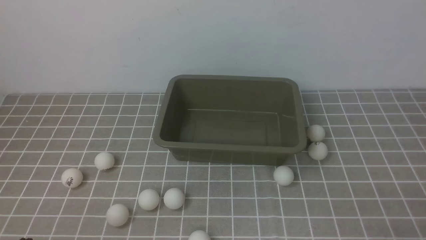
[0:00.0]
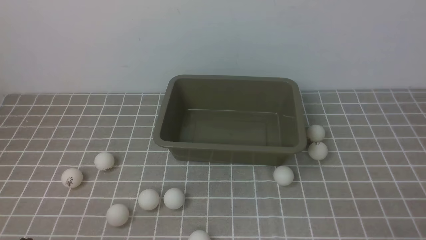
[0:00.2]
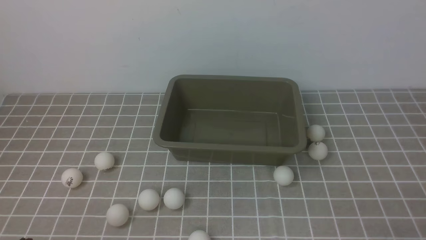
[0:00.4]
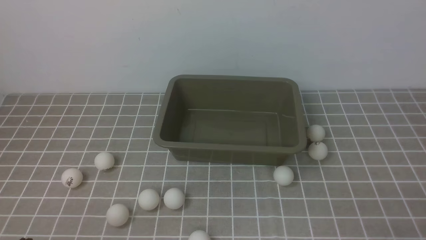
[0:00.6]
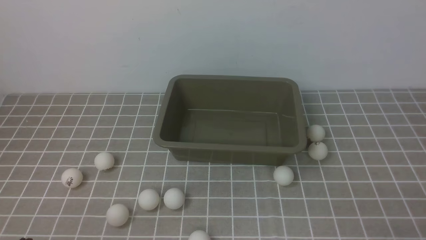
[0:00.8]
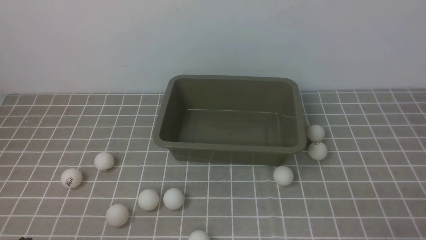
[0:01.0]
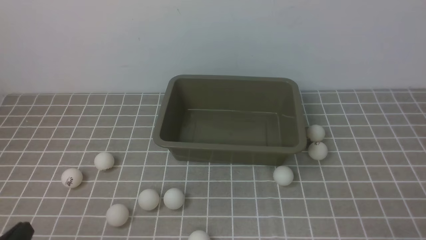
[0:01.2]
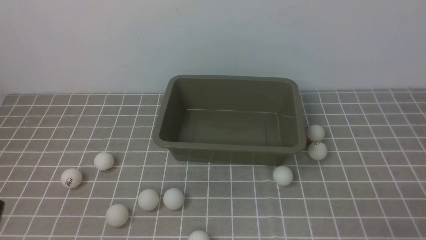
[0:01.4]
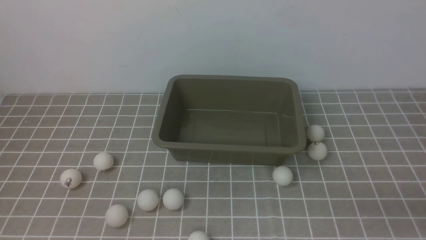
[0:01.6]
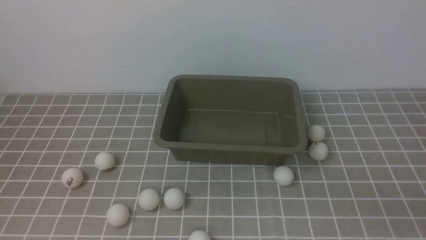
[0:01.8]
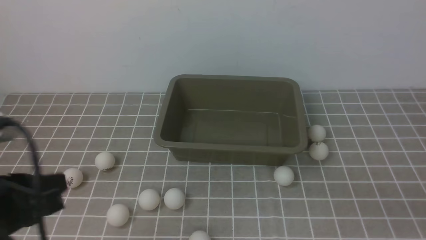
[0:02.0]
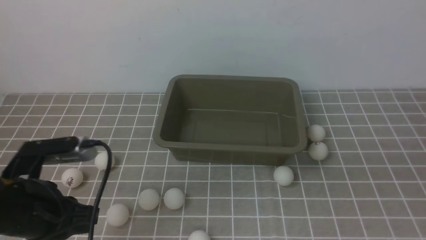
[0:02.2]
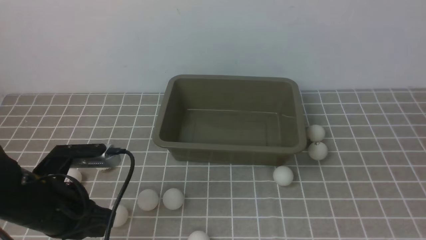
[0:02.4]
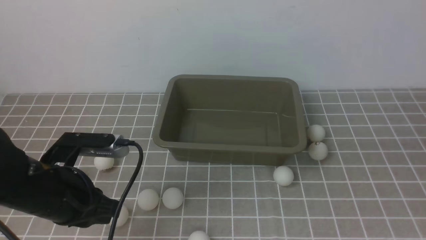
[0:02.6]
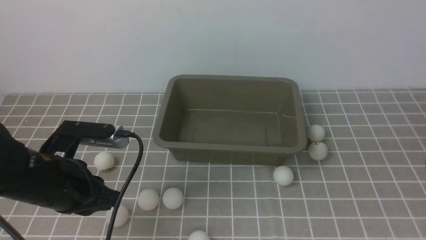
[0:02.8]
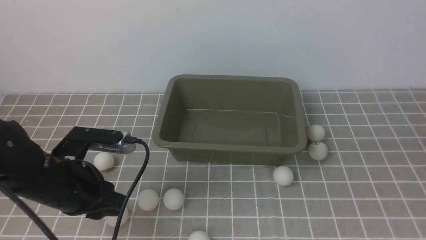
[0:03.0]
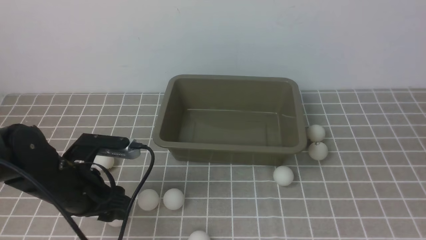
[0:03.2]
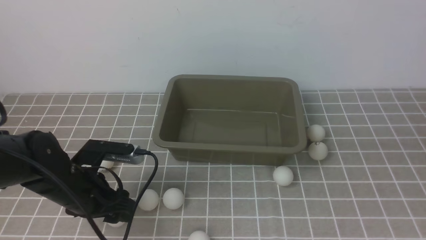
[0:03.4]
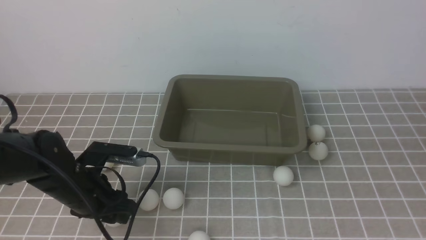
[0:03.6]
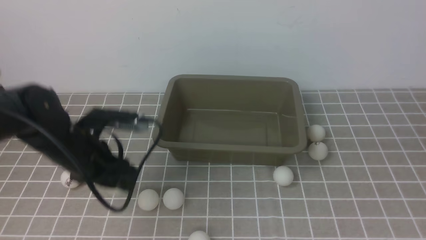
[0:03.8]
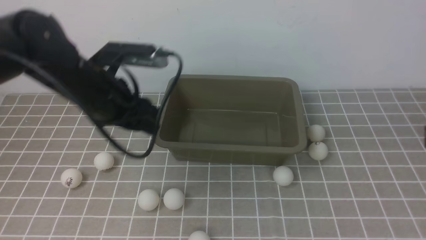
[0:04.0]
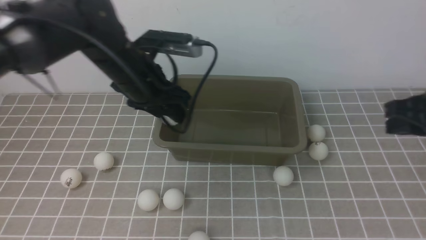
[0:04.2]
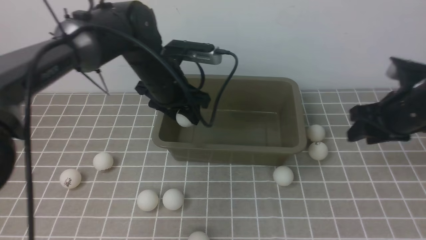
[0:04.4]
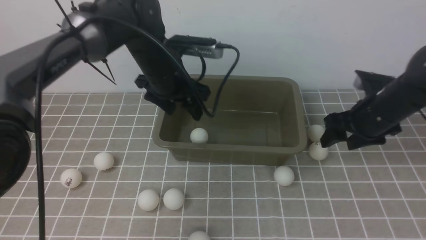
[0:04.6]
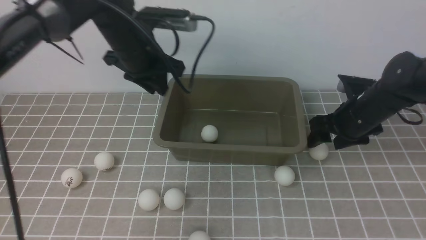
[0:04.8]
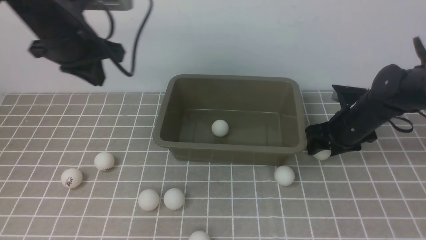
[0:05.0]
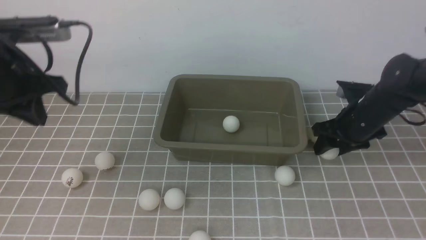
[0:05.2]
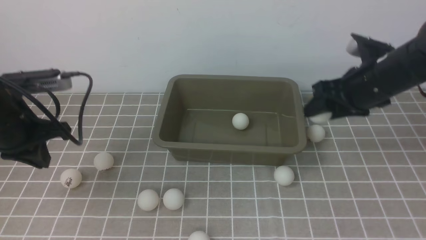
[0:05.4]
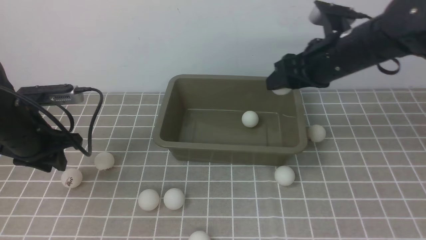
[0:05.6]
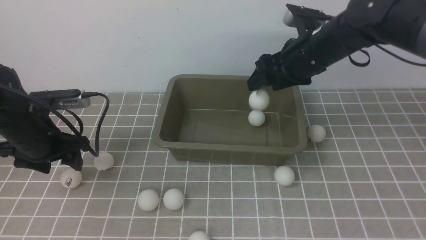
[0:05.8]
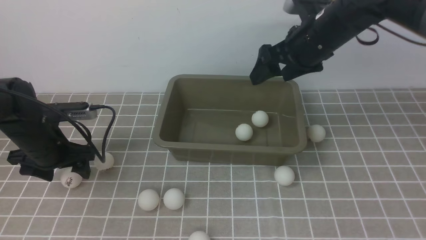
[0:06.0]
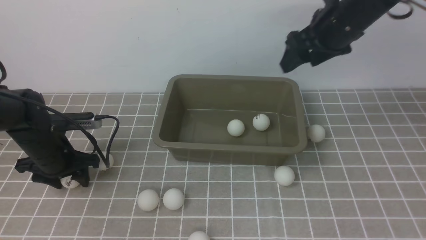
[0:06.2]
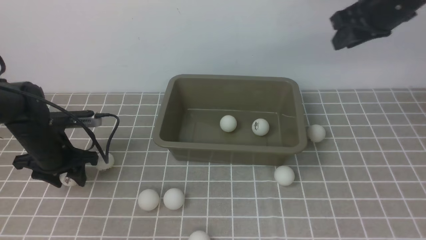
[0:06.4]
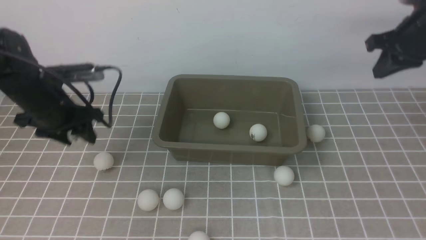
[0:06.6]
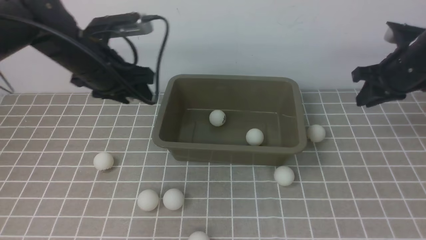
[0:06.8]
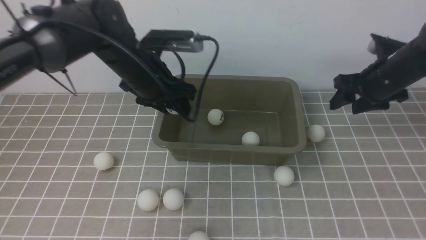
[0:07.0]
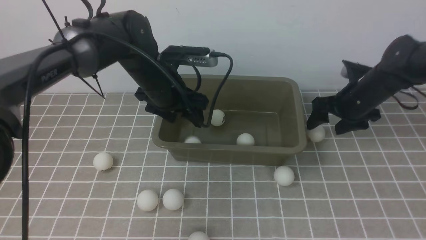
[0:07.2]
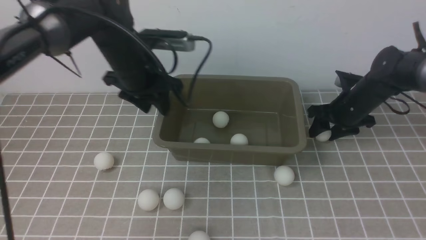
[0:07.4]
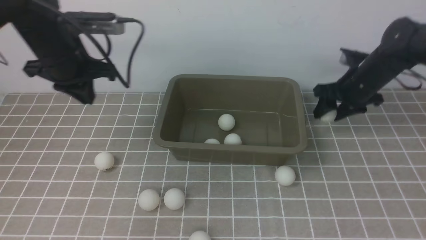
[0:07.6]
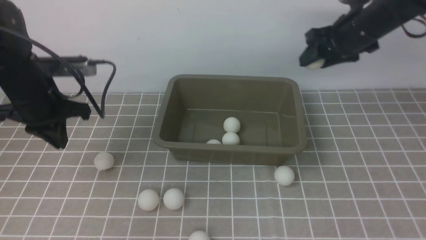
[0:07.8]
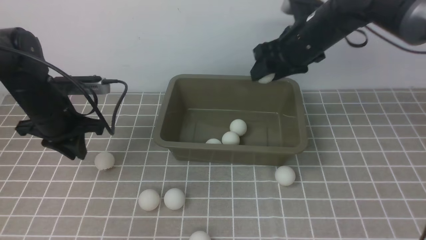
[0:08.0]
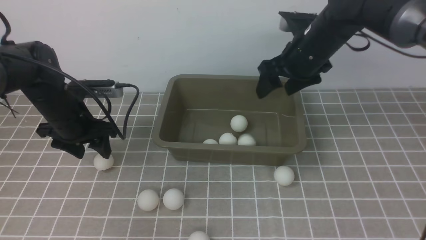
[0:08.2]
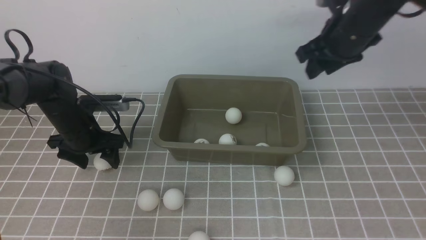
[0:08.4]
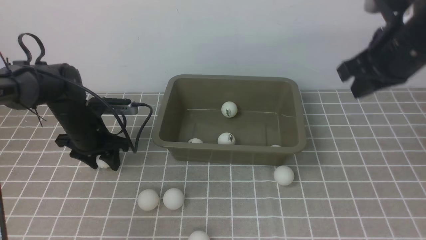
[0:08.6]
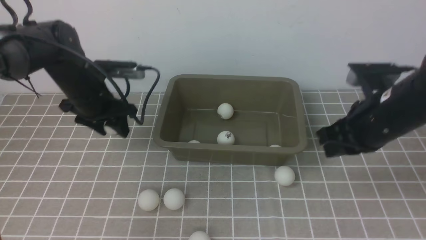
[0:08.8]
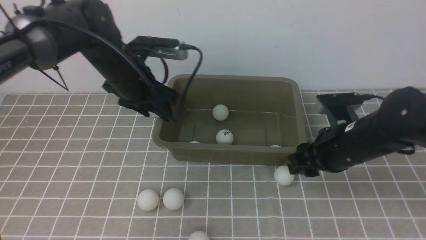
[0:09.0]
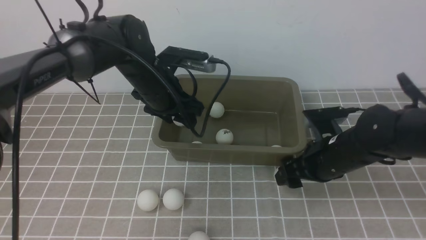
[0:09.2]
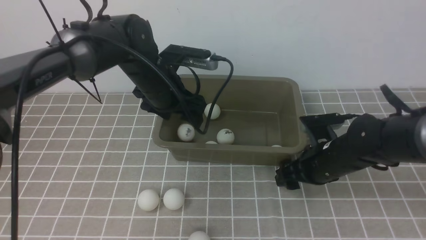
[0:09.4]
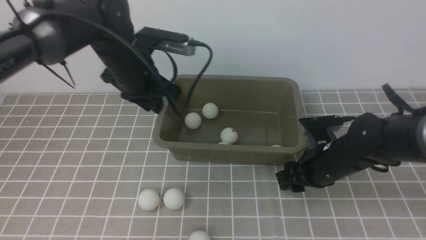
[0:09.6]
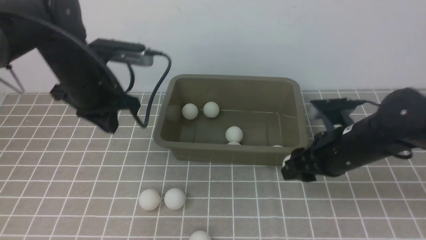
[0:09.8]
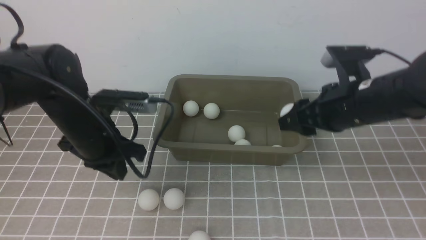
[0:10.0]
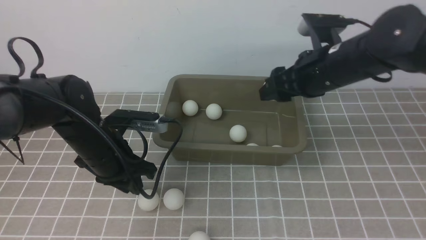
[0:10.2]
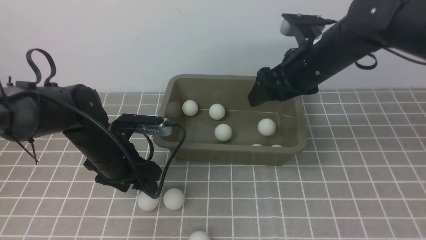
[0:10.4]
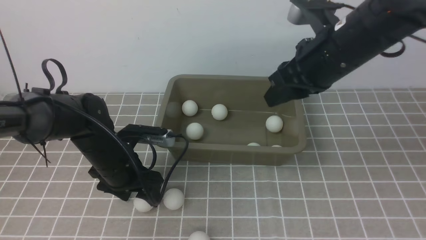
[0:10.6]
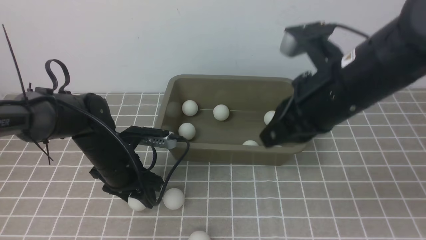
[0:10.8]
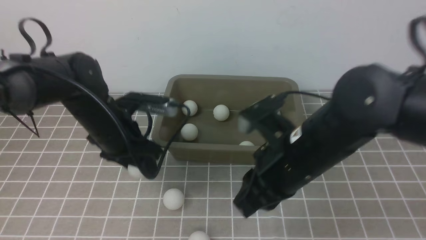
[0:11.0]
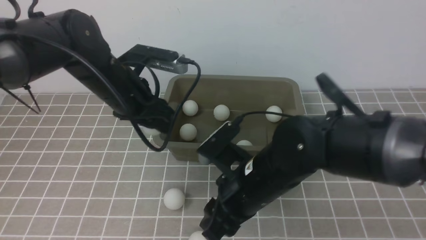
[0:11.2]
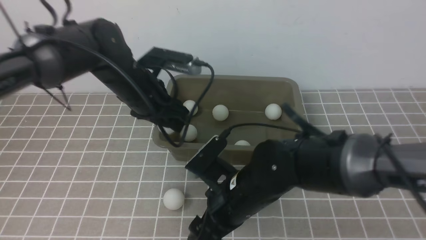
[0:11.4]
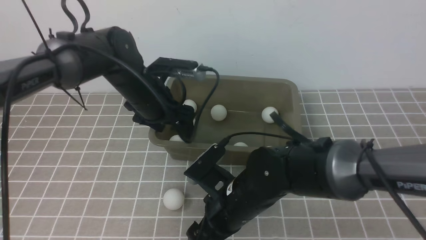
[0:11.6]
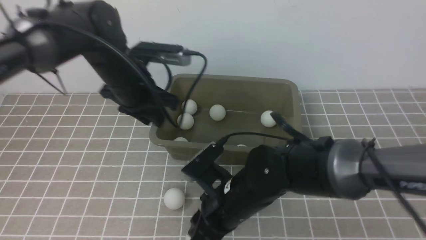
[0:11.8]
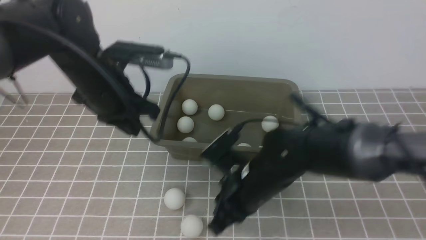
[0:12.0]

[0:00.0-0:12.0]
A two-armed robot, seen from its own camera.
Step, 0:00.0 to 0:03.8: use the left arm to clamp the table tennis ball closest to it.
Step, 0:04.0 to 0:04.6: use the left arm to put the table tennis ball into the box.
Step, 0:04.8 to 0:05.2: use the right arm to clamp the table tennis ball closest to it.
Step, 0:05.4 to 0:05.8: use the right arm to put the table tennis ball into the box.
Step, 0:06.0 to 0:06.4: use the left arm to clamp the table tennis ball closest to it.
Step, 0:06.8 to 0:07.2: use the left arm to put the table tennis ball into the box.
Step, 0:07.4 to 0:07.6: use the right arm to clamp the table tennis ball closest to it.
Step, 0:07.8 to 0:08.0: use the right arm to put the table tennis ball into the box.
Step, 0:08.4 to 0:08.6: use the left arm to clamp the table tennis ball closest to it.
Step, 0:09.0 to 0:09.4: use the left arm to put the table tennis ball into the box.
Step, 0:09.6 to 0:09.8: use the right arm to clamp the table tennis ball closest to it.
Step, 0:10.0 to 0:10.2: use the right arm to put the table tennis ball into the box.
Step, 0:10.4 to 0:10.8: use the left arm to clamp the table tennis ball closest to it.
Step, 0:11.0 to 0:11.6: use the left arm to put the table tennis ball into the box.
0:01.6 to 0:03.0: The left gripper moves forward, about 20 cm, and opens up, while the right gripper travels upward and forward by about 15 cm.
0:03.0 to 0:04.4: The right gripper moves forward and downward, roughly 20 cm, and opens. The left gripper goes approximately 20 cm forward and to the right, and opens its fingers.
0:04.4 to 0:06.0: The right gripper is displaced to the left, upward and forward by roughly 15 cm, while the left gripper travels to the left and downward by some 20 cm, and closes, then reopens.
0:06.0 to 0:07.6: The left gripper moves upward and to the right, some 15 cm, and closes; the right gripper heads downward and to the right, covering roughly 10 cm, and closes, then reopens.
0:07.6 to 0:09.0: The right gripper heads backward, covering roughly 15 cm, and closes and opens again, while the left gripper travels to the right by approximately 10 cm, goes downward and returns, roughly 10 cm each way, and opens its fingers.
0:09.0 to 0:10.4: The left gripper goes about 10 cm backward and downward, and closes, then reopens, while the right gripper travels upward and forward by approximately 10 cm.
0:10.4 to 0:12.0: The left gripper moves upward, roughly 10 cm, and closes up; the right gripper travels downward, to the left and backward by approximately 20 cm, and closes up.

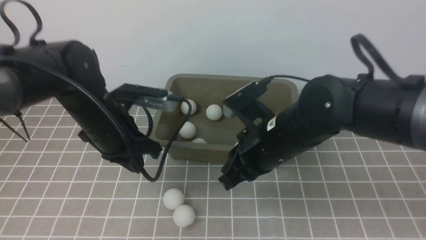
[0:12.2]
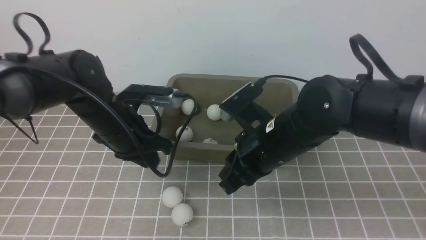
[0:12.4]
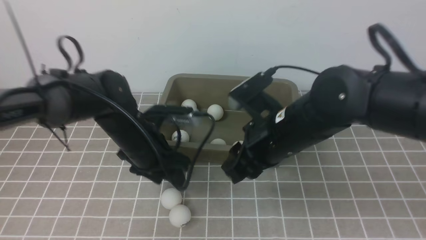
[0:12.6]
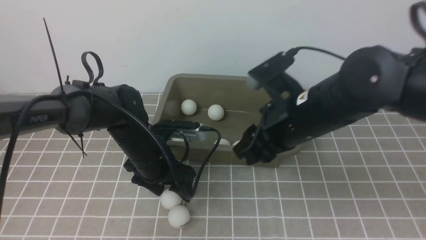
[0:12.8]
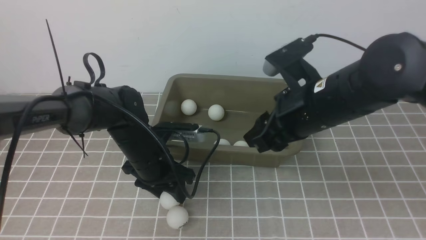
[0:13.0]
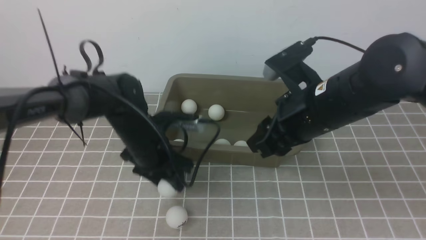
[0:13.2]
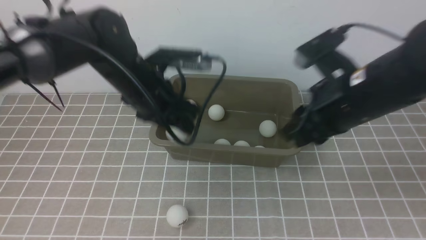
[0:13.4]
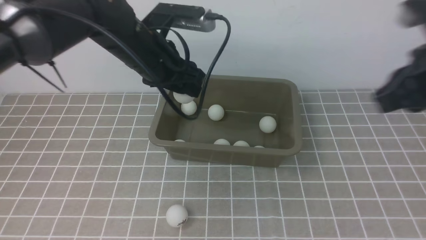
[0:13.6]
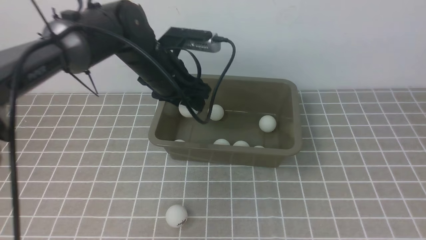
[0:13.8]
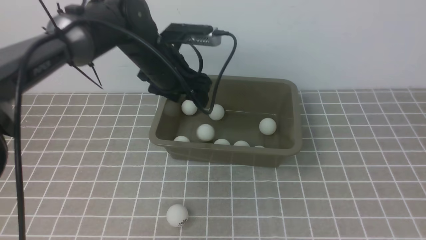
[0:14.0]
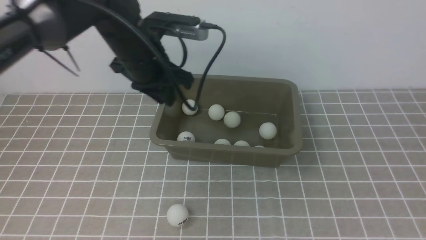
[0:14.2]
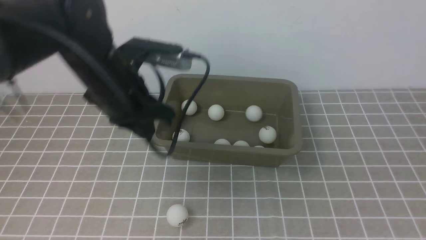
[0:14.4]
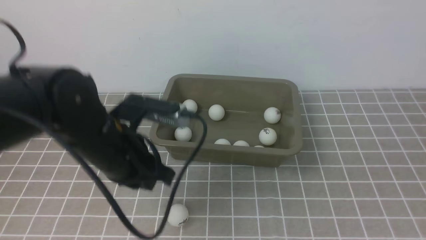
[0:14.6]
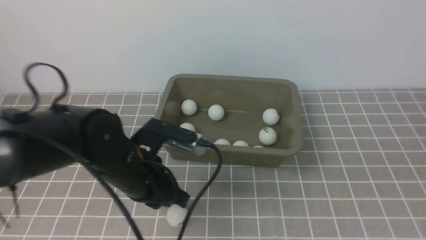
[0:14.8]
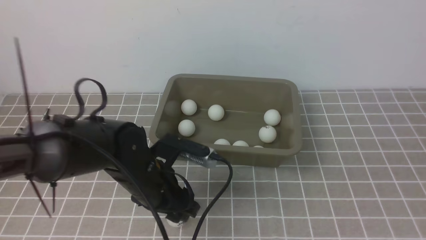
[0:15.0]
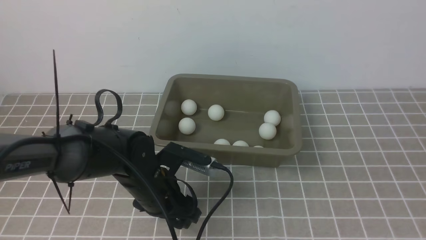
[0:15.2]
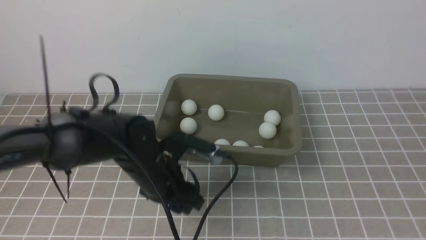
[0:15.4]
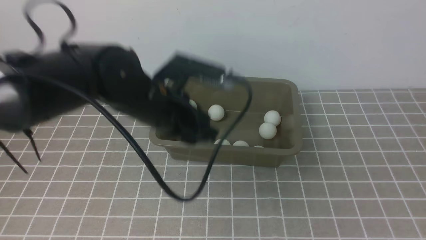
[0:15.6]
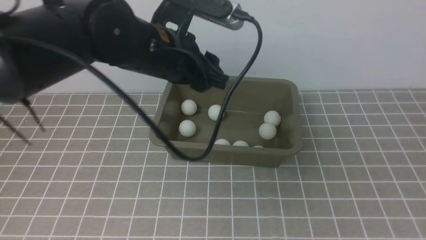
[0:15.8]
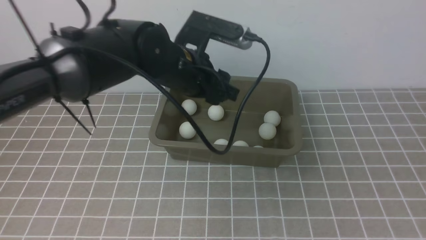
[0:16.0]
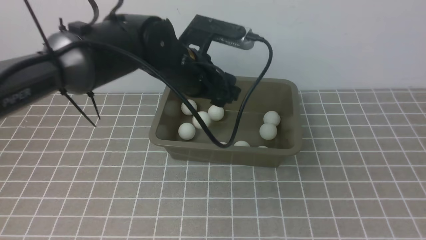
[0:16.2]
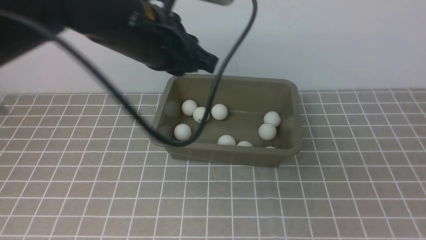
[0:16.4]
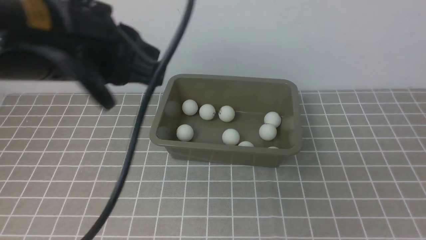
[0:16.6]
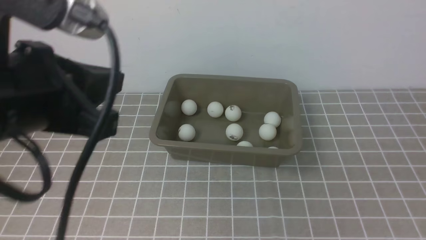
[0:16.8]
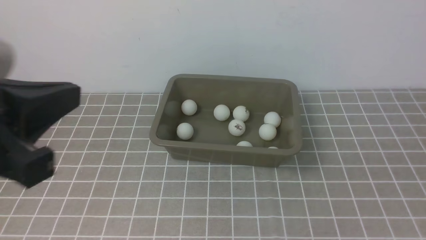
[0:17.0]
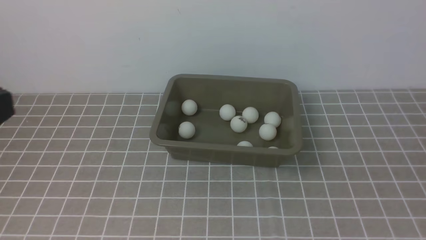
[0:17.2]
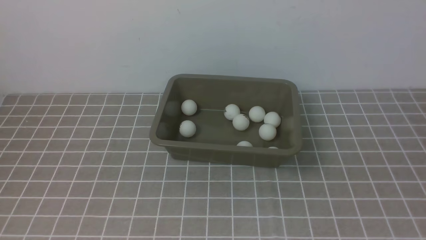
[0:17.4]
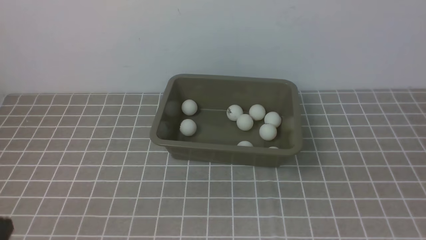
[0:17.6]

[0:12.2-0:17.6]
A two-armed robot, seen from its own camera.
Step, 0:12.2 to 0:13.2: use the left arm to clamp the table tennis ball closest to it.
Step, 0:13.4 to 0:14.0: use the left arm to put the table tennis ball into the box.
Step, 0:14.2 to 0:15.4: use the left arm to clamp the table tennis ball closest to it.
Step, 0:15.6 to 0:16.2: use the left arm to put the table tennis ball into the box.
0:12.2 to 0:13.6: The left gripper is displaced forward and to the right by approximately 10 cm, and opens, while the right gripper shifts roughly 25 cm to the right and upward, and opens and closes again.
0:13.6 to 0:15.0: The left gripper shifts approximately 15 cm backward and downward, and closes, then reopens. The right gripper moves backward, roughly 20 cm.
0:15.0 to 0:16.2: The left gripper heads upward and forward, covering about 15 cm.
0:16.2 to 0:17.6: The left gripper shifts approximately 35 cm backward and to the left, and closes.
